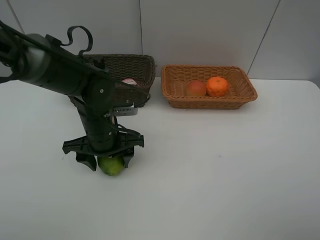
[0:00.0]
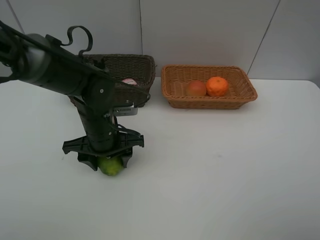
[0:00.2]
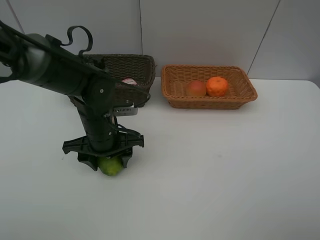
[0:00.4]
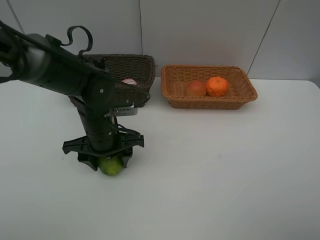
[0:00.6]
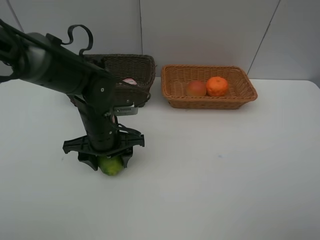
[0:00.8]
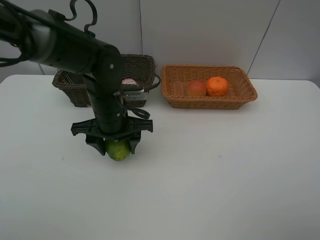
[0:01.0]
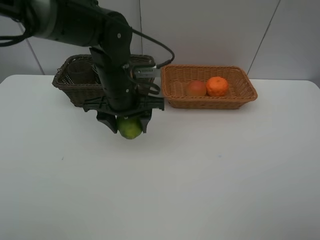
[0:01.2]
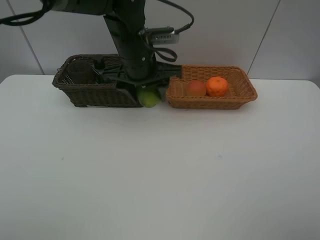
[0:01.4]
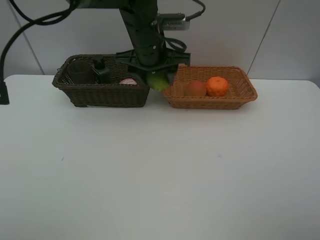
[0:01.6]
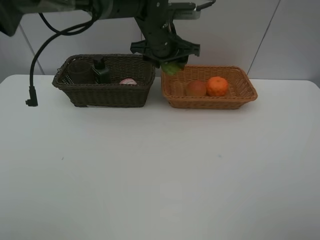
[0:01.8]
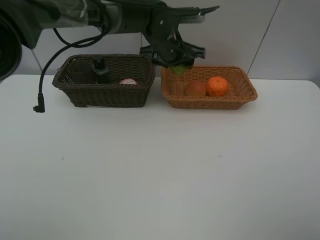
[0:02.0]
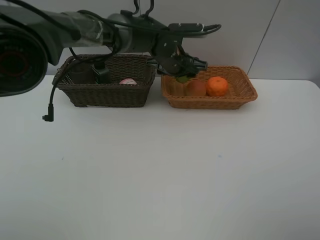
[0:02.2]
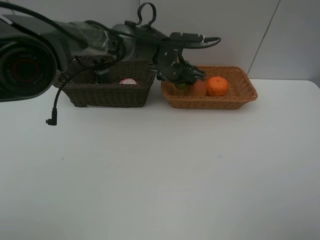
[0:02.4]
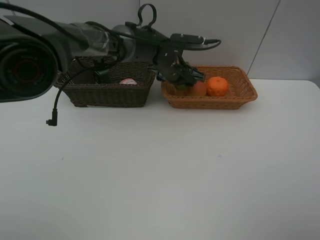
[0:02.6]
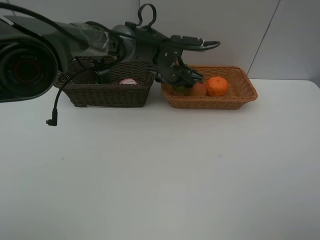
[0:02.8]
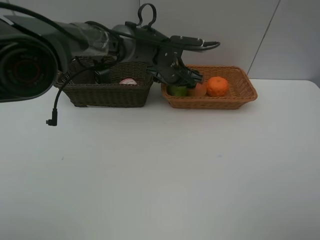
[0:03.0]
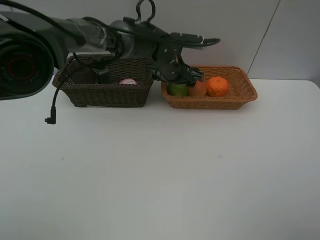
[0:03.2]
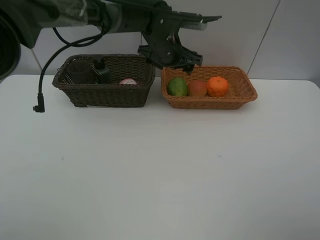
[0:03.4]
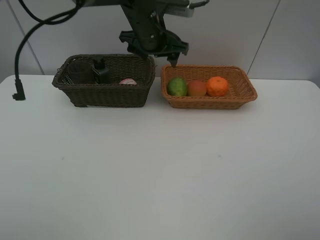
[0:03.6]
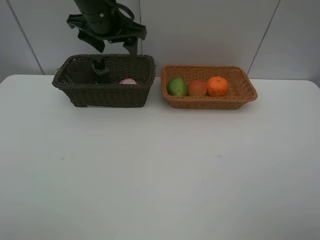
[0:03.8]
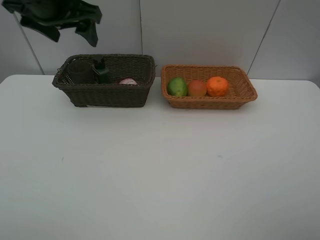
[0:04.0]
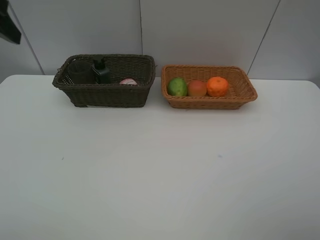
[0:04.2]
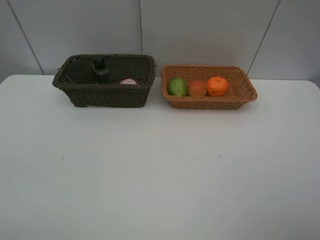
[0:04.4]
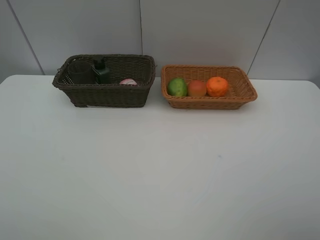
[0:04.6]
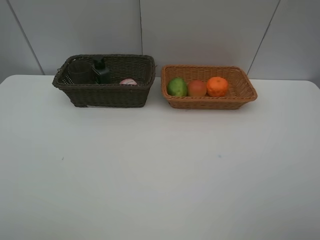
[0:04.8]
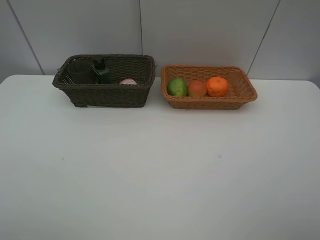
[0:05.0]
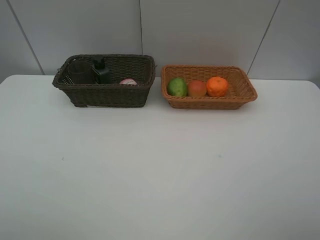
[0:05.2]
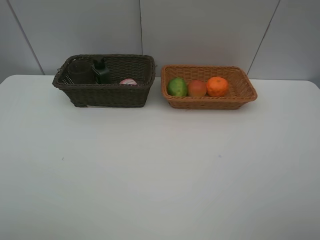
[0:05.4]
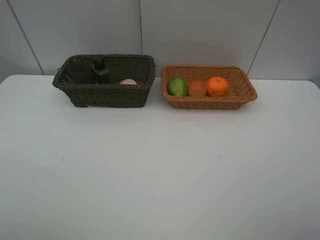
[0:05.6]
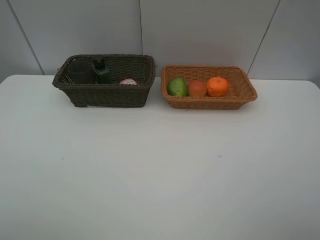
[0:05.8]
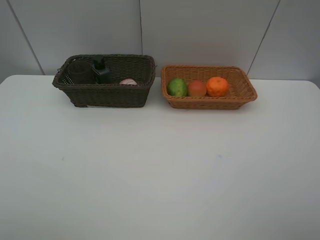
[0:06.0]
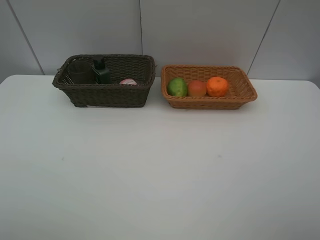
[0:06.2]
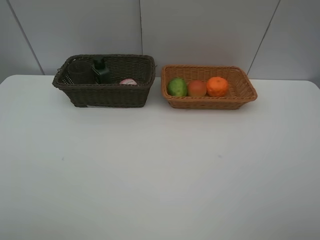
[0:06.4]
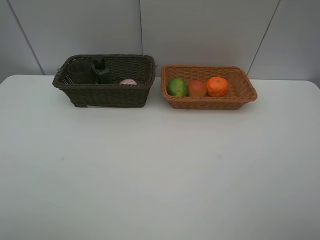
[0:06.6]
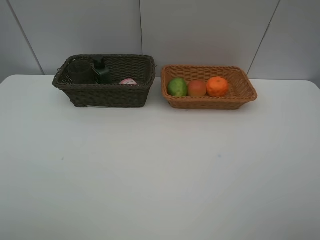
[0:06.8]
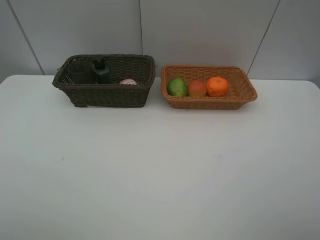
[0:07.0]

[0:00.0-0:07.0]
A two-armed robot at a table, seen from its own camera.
Task of the whole recording: place multiple objects separately in different baskets.
0:00.0 to 0:01.4: The left gripper goes roughly 15 cm upward, forward and to the right.
0:01.4 to 0:02.8: The left gripper shifts about 15 cm downward, forward and to the right.
0:02.8 to 0:04.2: The left gripper shifts about 40 cm to the left, upward and backward.
0:04.2 to 0:05.6: The left gripper moves backward, roughly 25 cm.
0:05.6 to 0:07.0: Both grippers stay about where they are.
